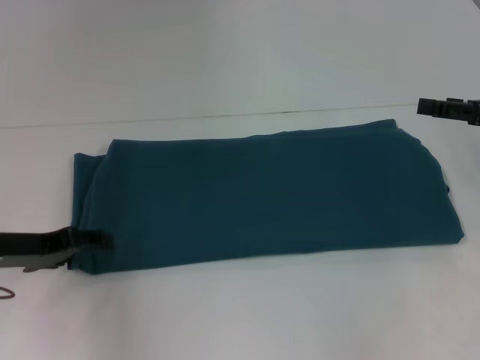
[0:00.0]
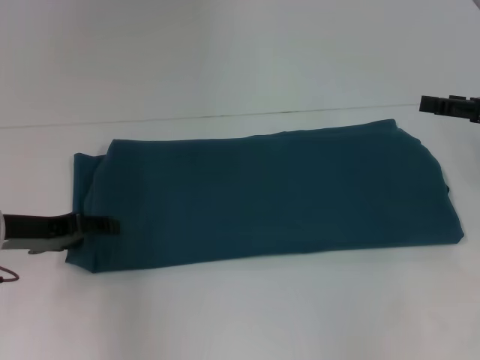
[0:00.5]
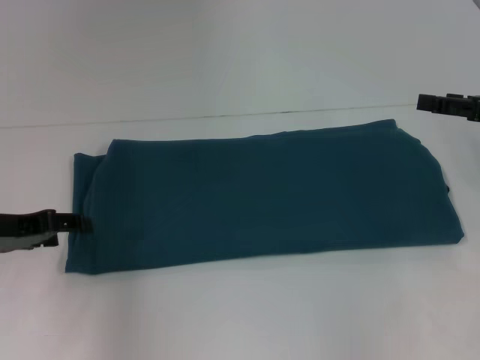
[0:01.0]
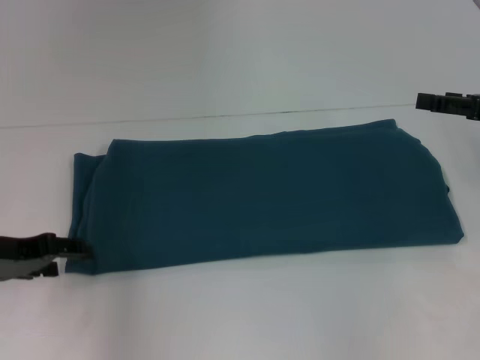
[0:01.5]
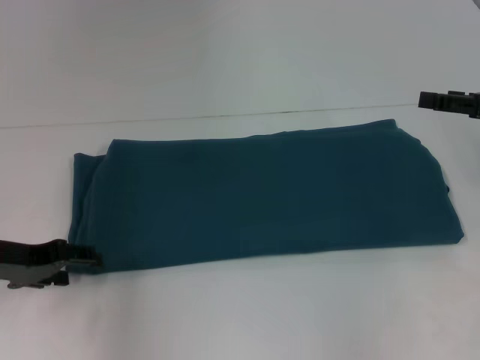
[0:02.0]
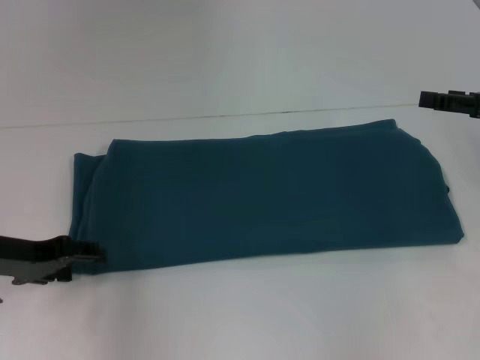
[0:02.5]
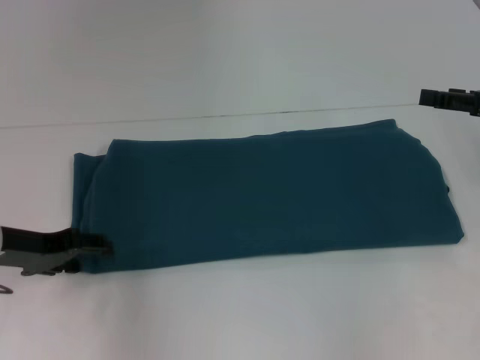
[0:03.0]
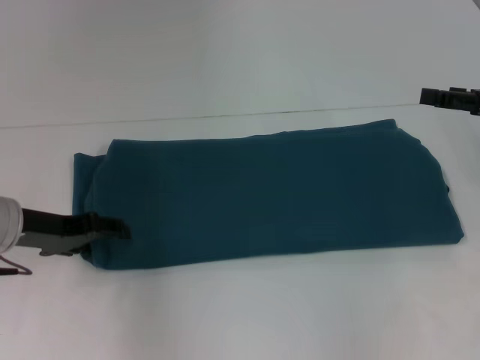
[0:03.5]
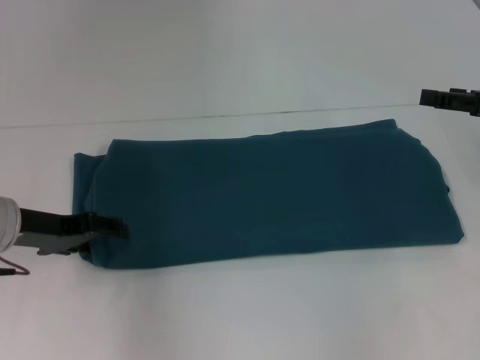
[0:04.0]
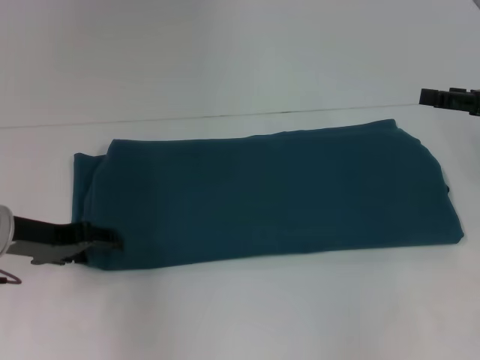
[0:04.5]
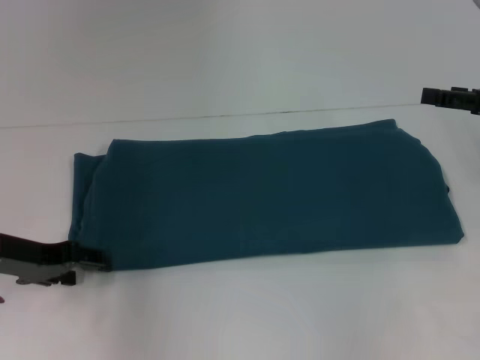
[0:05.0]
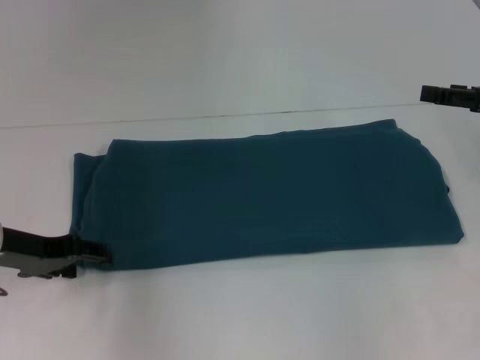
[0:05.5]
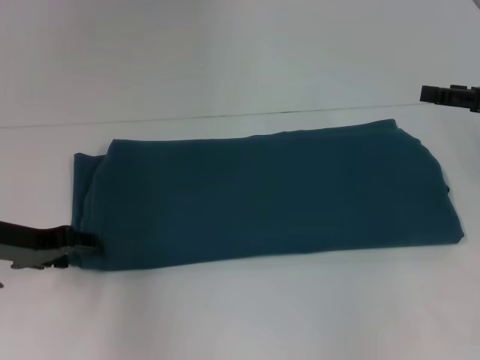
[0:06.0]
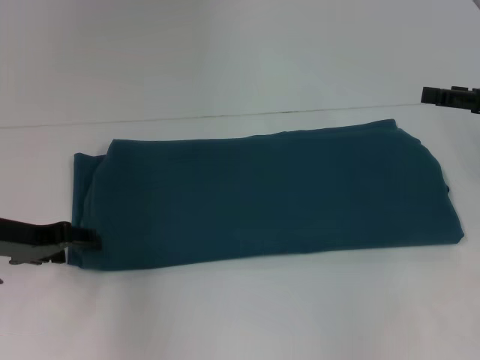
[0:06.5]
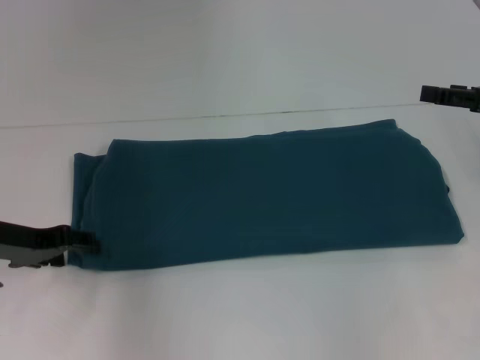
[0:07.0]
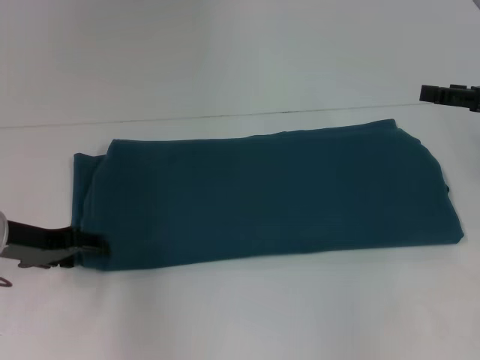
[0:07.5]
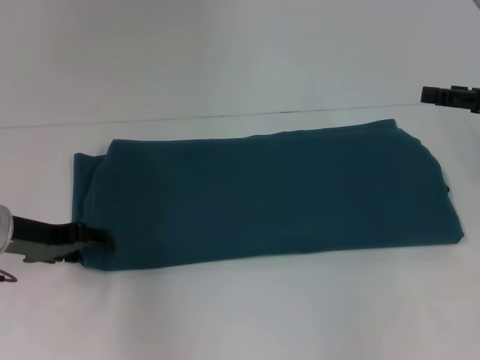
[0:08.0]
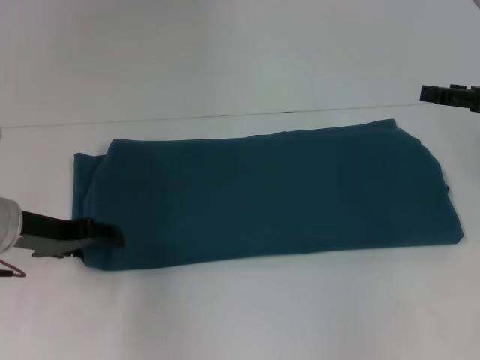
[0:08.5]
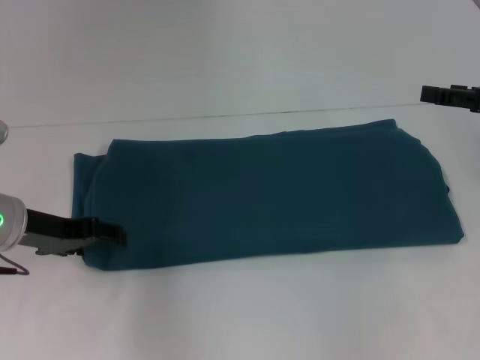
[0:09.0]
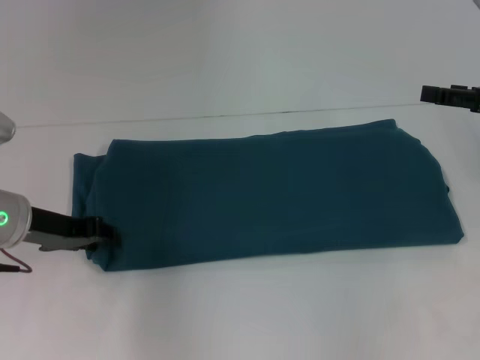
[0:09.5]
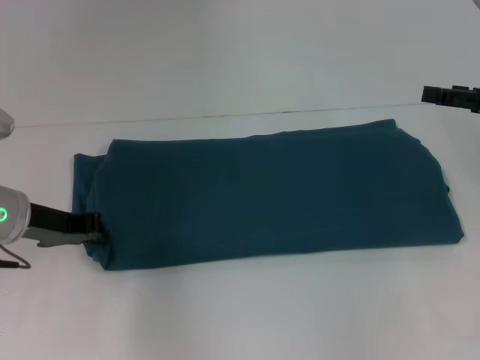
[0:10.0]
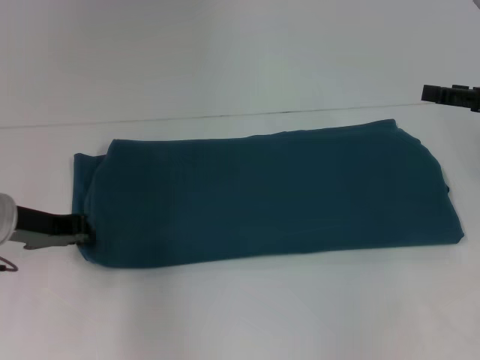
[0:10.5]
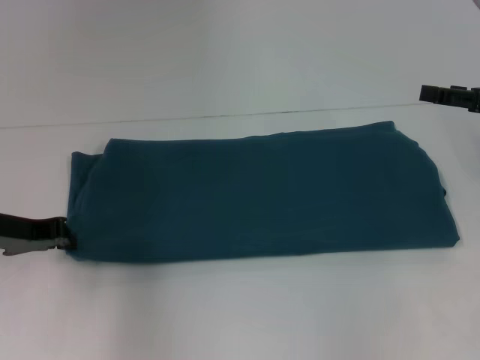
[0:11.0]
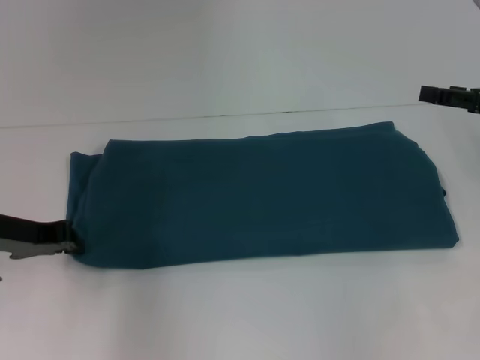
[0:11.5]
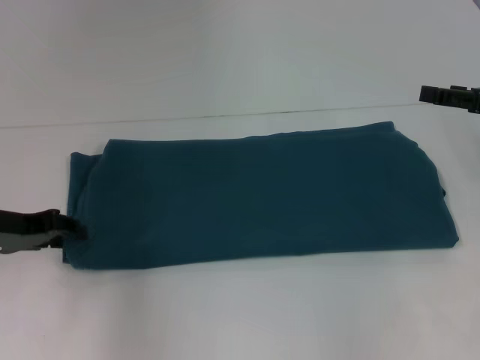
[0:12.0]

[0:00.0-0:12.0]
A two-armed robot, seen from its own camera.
0:00.0 to 0:06.0: There are only small adjustments of the grippers.
0:06.0 to 0:08.0: Neither gripper changes place.
0:08.0 to 0:10.0: The left gripper closes.
0:10.0 to 0:12.0: The grippers stay close to where they were, moving slightly.

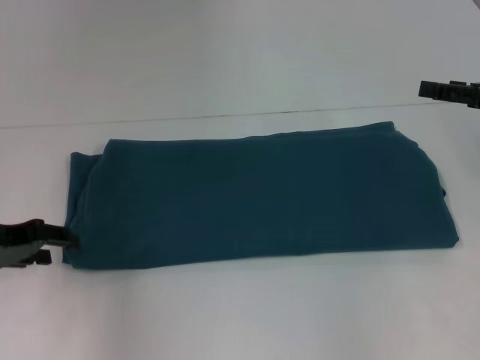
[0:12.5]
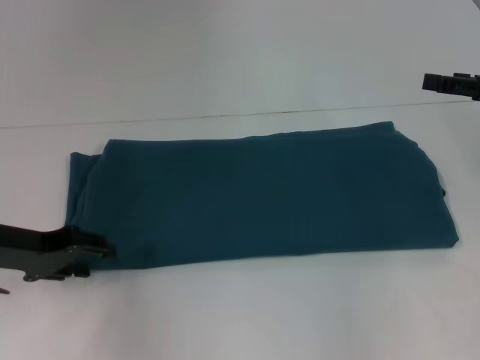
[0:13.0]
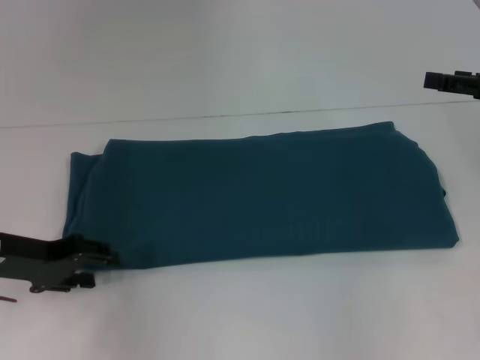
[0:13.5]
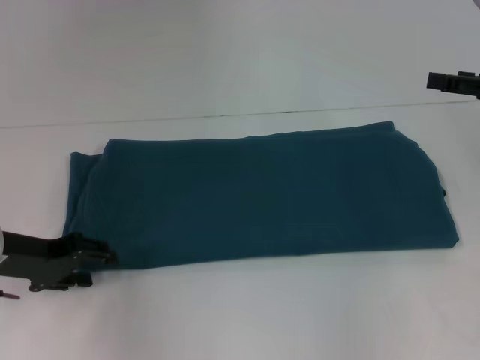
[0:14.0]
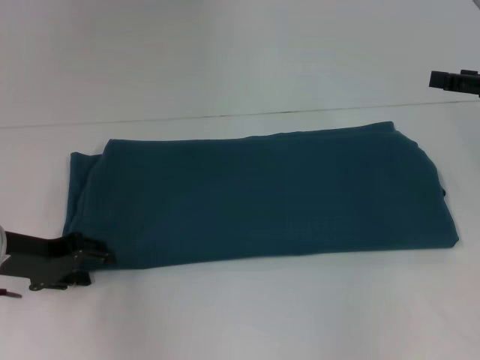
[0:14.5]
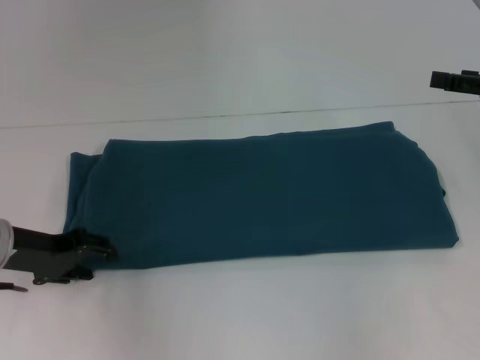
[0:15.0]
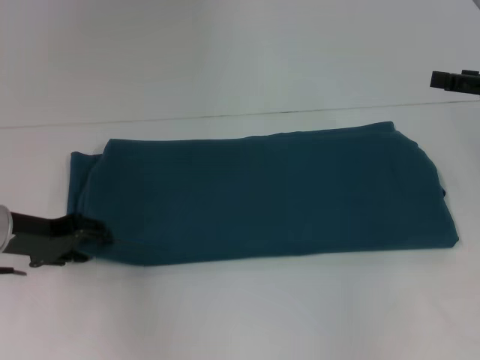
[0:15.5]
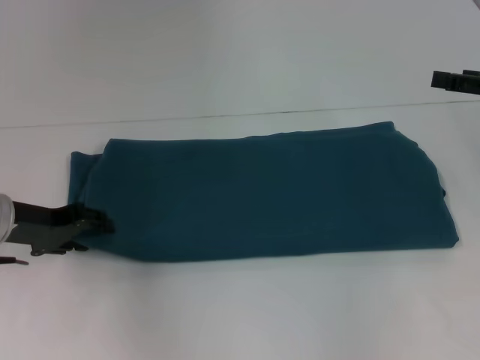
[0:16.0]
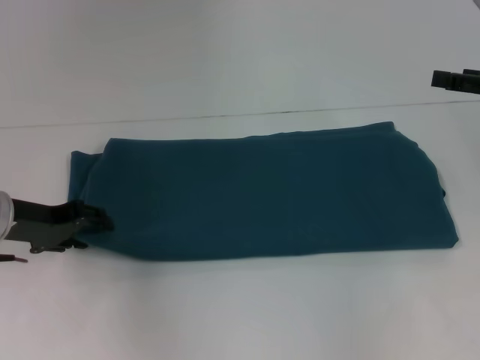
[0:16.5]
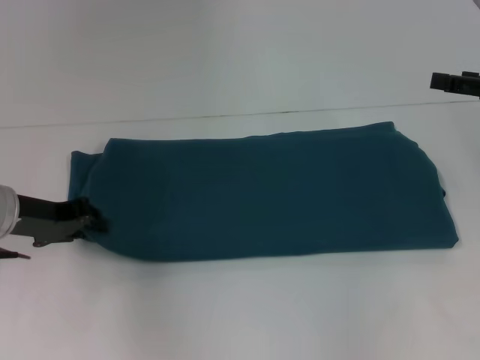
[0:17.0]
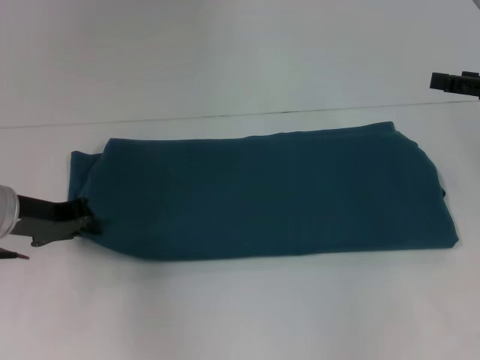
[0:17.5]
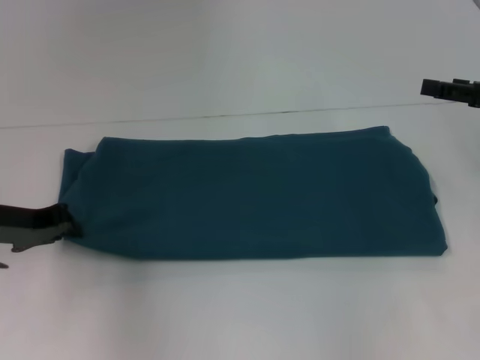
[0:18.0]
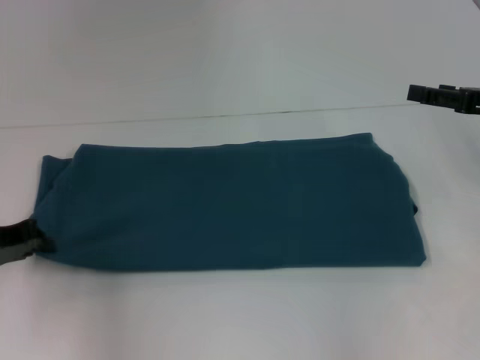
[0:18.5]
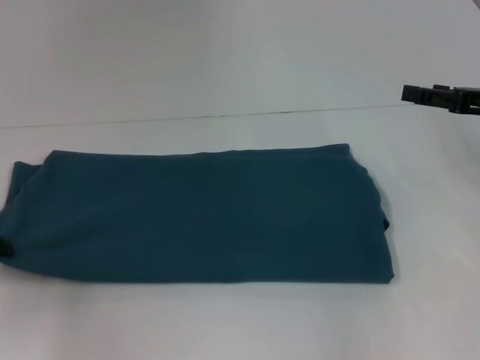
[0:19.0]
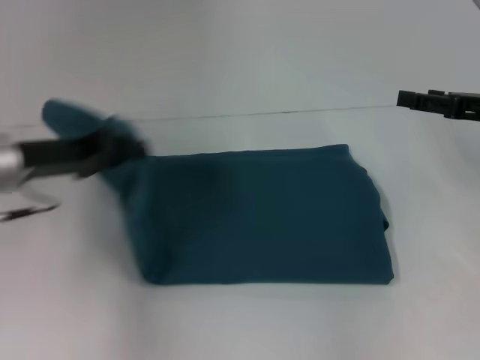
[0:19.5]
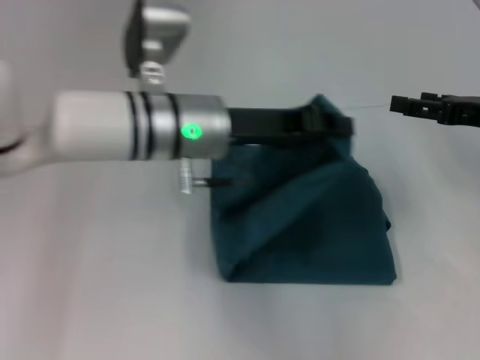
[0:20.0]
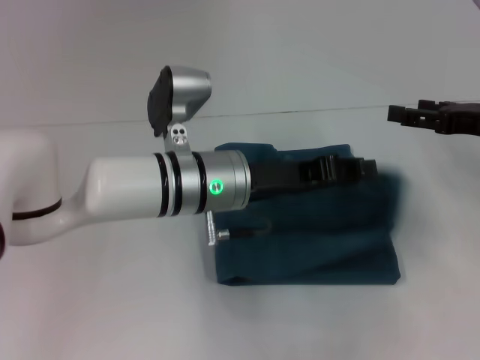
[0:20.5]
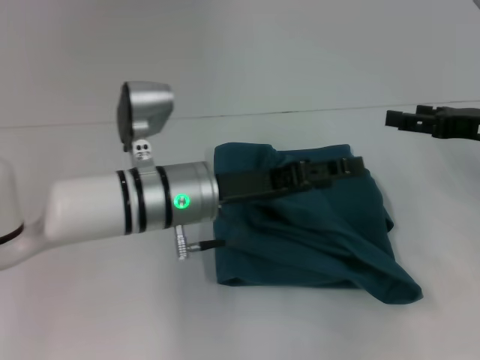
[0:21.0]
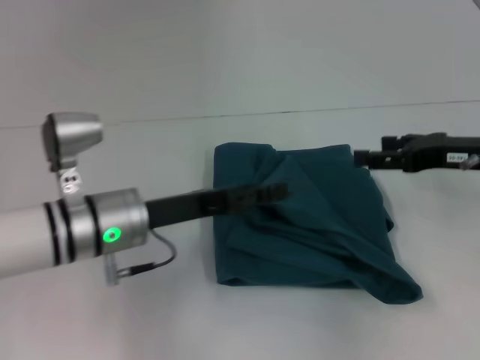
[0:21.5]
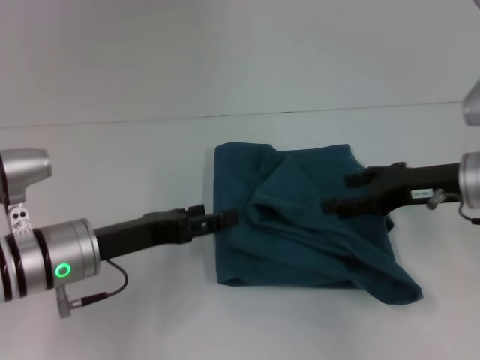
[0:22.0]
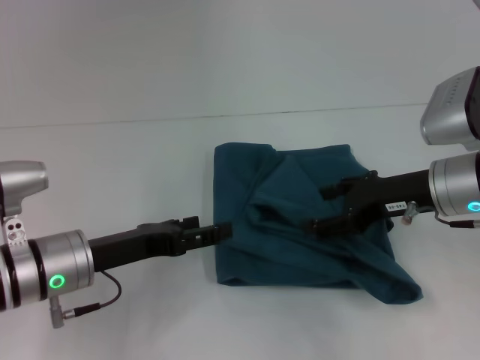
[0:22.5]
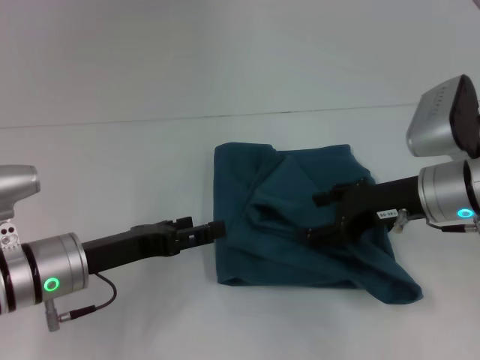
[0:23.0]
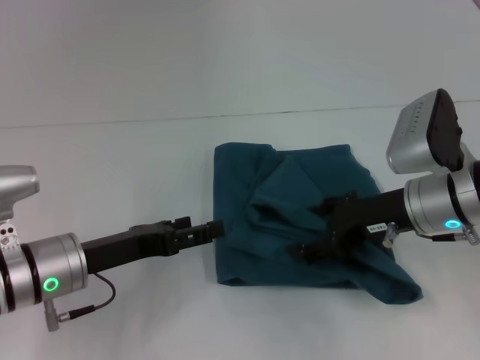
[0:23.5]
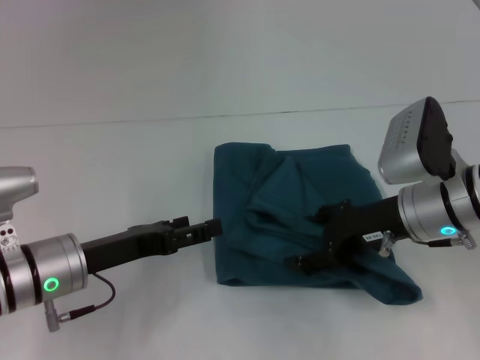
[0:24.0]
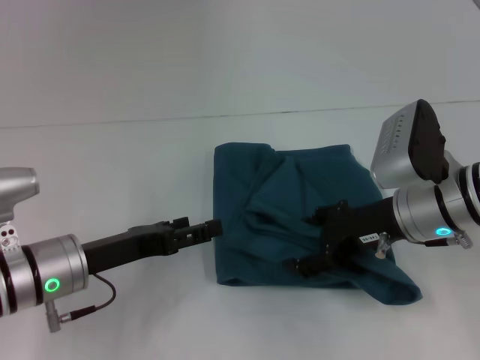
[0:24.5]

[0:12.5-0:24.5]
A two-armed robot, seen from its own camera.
Step, 0:12.5 to 0:20.5: Fold the clothes to the left.
0:12.5 to 0:16.5: The grippers make only small movements.
0:16.5 to 0:18.5: The left gripper moves some 5 cm, and closes up.
0:18.5 to 0:20.5: The left gripper moves to the right, about 25 cm.
0:20.5 to 0:22.5: The left gripper heads to the left, covering about 15 cm, and opens up. Meanwhile the right gripper moves to the left, some 10 cm.
0:22.5 to 0:24.5: The grippers make only small movements.

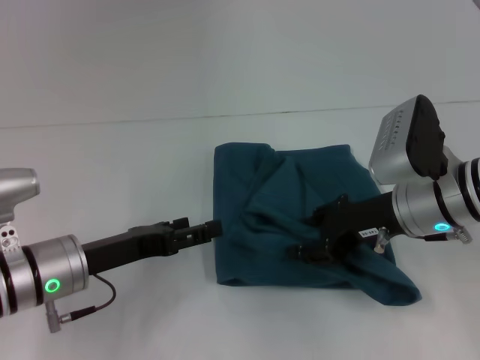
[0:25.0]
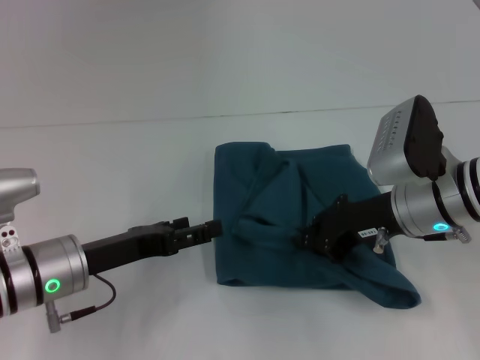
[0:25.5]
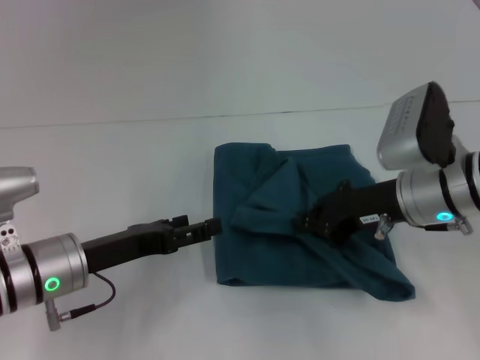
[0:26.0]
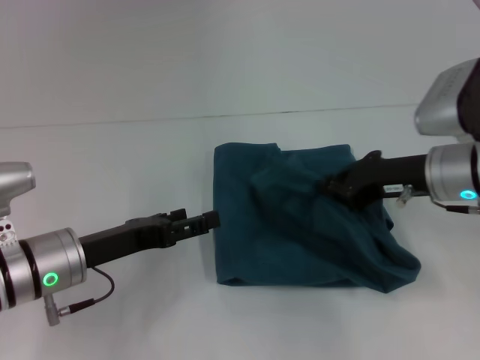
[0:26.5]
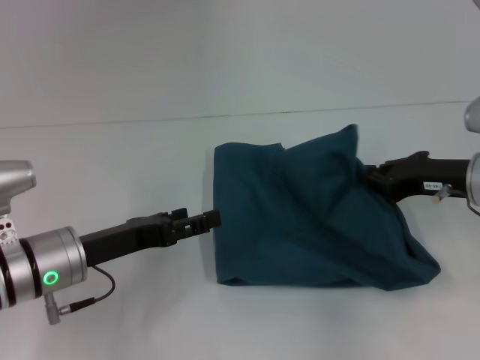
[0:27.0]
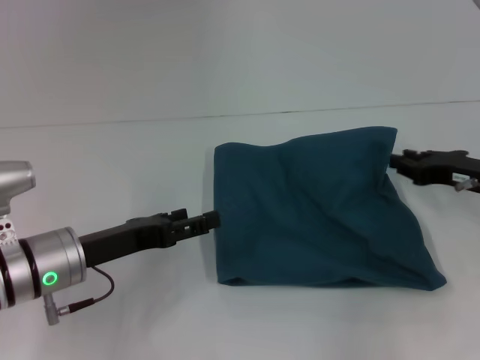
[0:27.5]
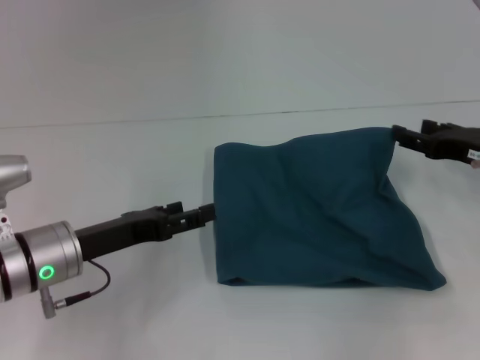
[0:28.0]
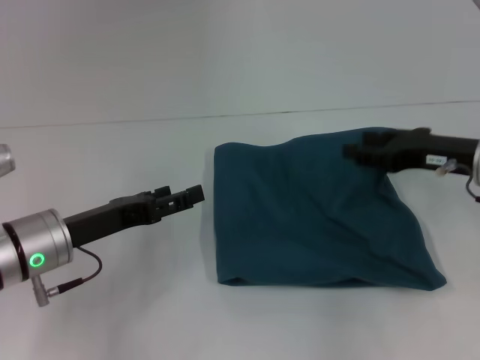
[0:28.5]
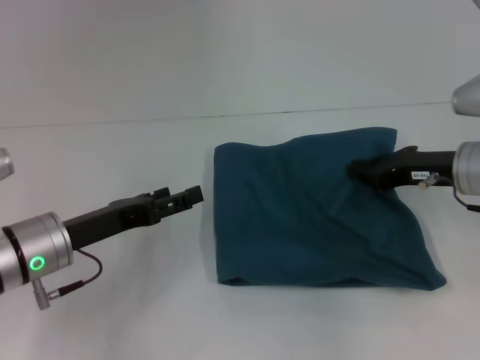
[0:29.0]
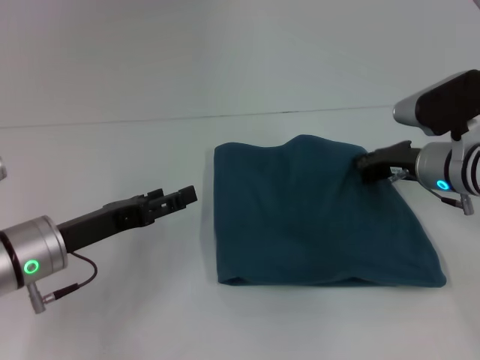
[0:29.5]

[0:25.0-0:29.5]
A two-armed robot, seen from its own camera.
0:25.0 to 0:27.0: The right gripper travels to the right by some 10 cm, and closes.
0:27.0 to 0:29.5: The right gripper ends up some 5 cm from where it was, and opens, then closes once more.
